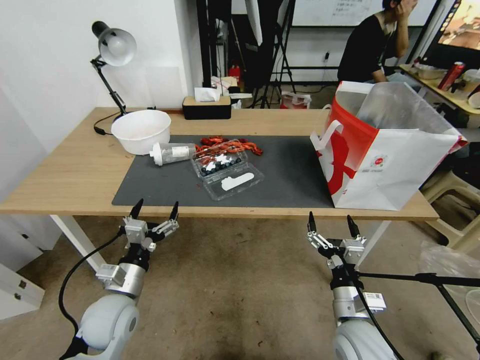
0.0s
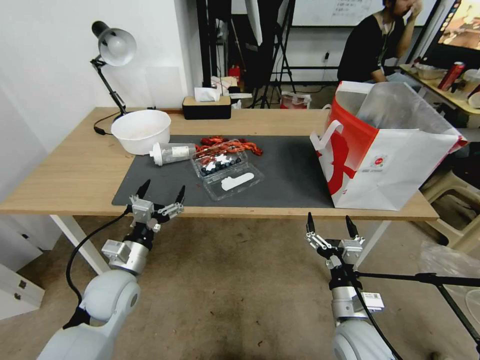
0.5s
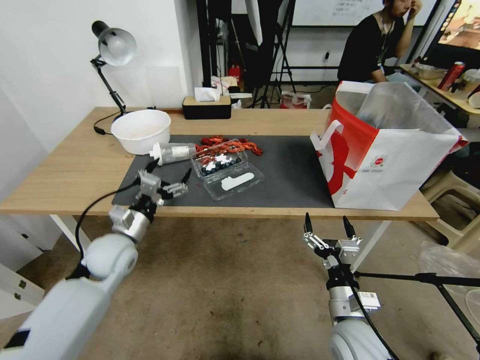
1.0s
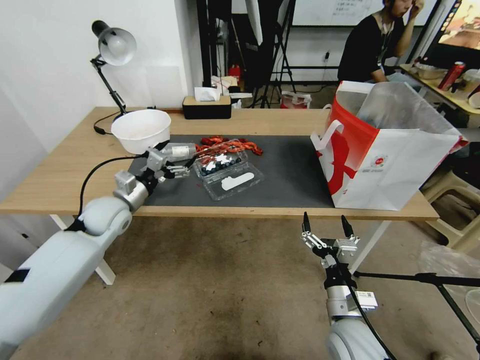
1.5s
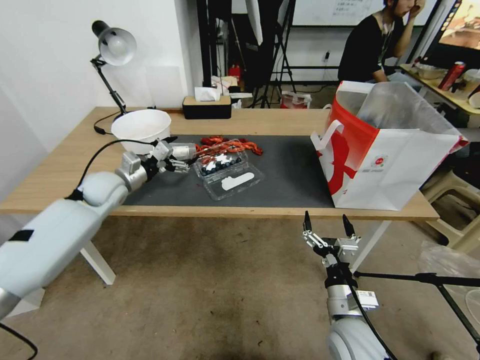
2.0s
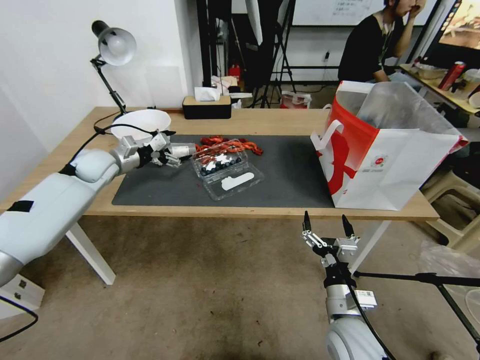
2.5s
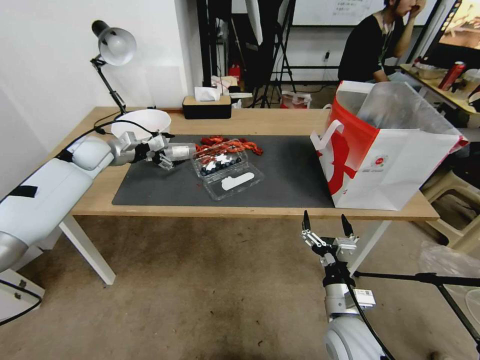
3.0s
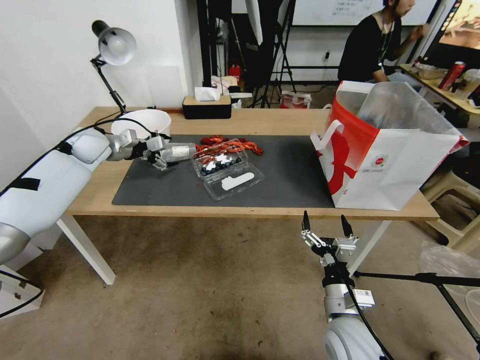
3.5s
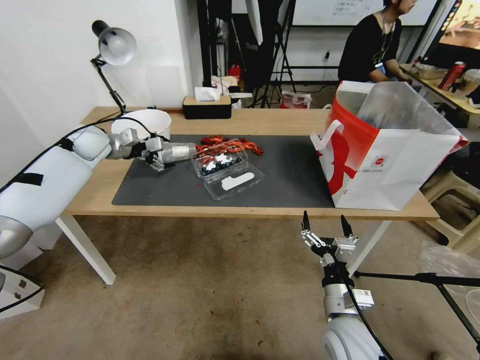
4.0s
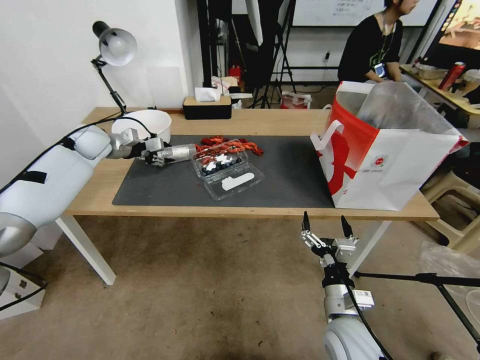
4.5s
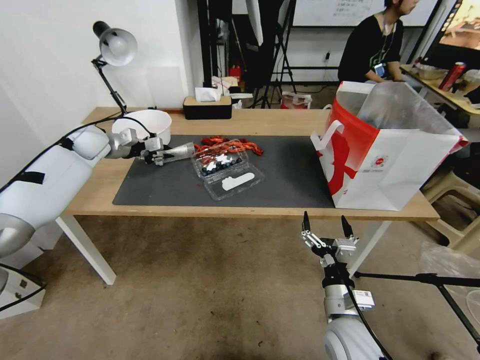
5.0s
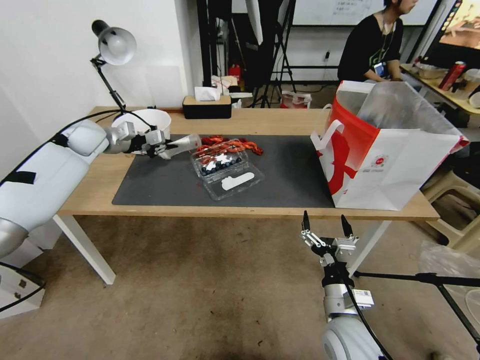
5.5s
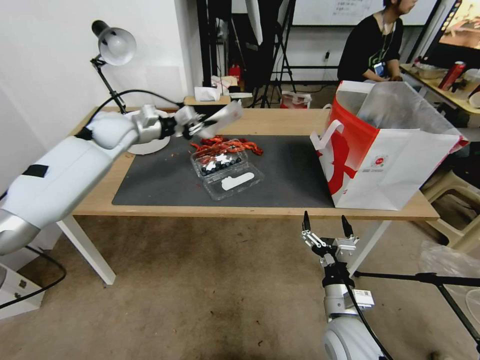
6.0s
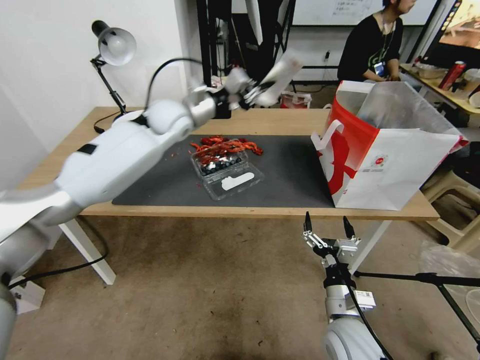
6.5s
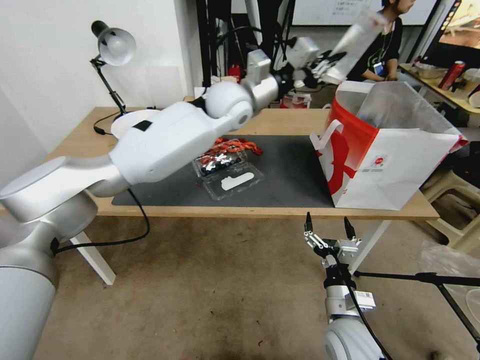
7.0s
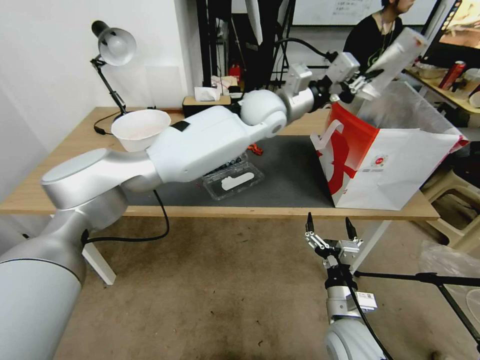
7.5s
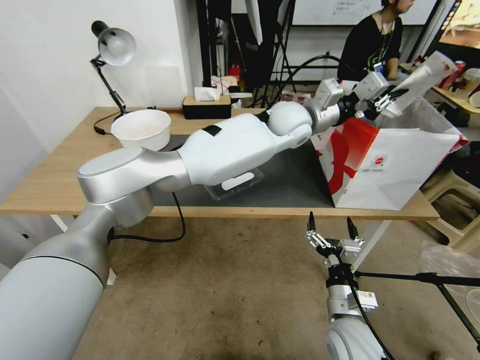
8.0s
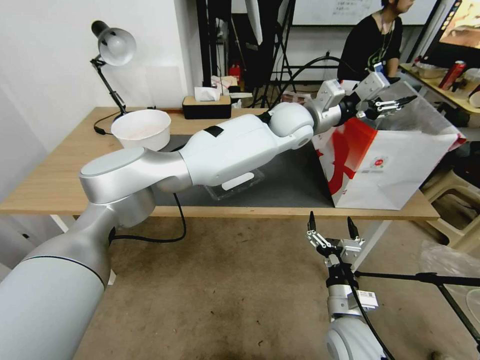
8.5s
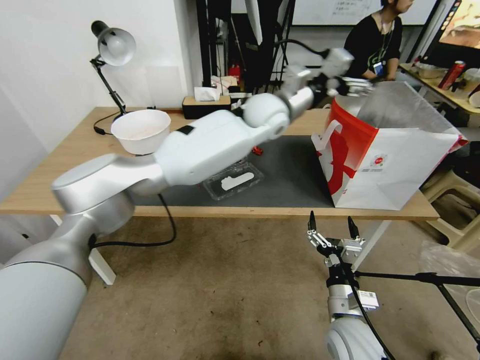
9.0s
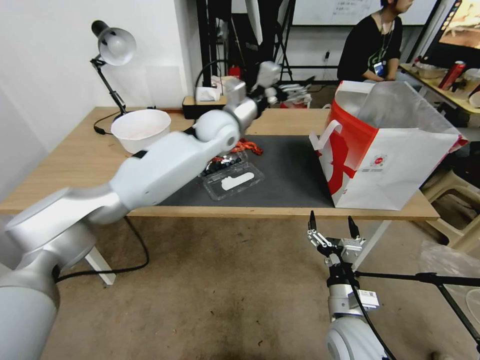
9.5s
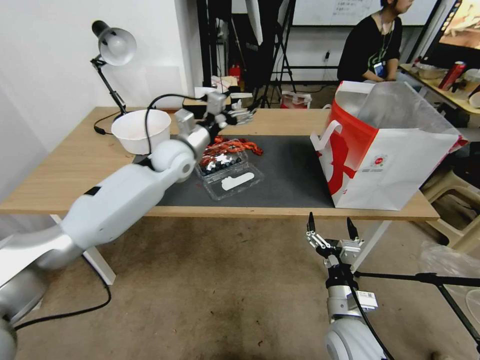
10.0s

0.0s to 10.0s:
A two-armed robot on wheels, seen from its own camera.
0.0s to 2.0s: The left gripper shifts approximately 30 cm forward and upward.
2.0s to 4.0s: The left gripper moves forward, upward and to the left, roughly 15 cm.
4.0s to 6.0s: The left gripper moves to the right, about 10 cm, and closes up.
6.0s to 8.0s: The left gripper moves to the right, about 40 cm.
8.0s to 10.0s: The left gripper travels to the left by roughly 30 cm, and opens.

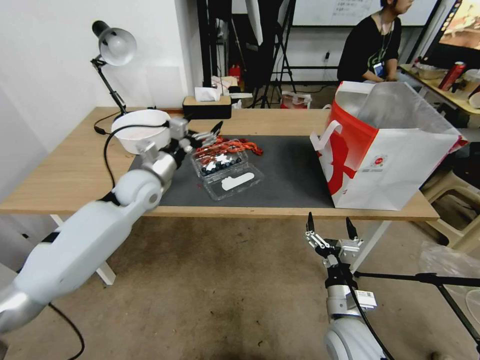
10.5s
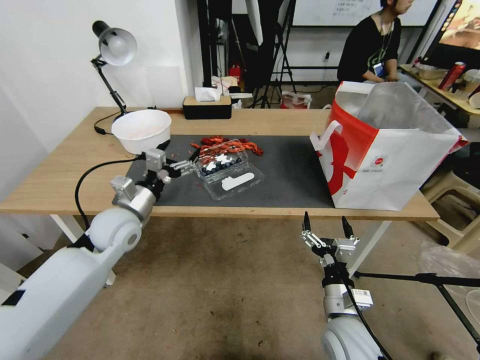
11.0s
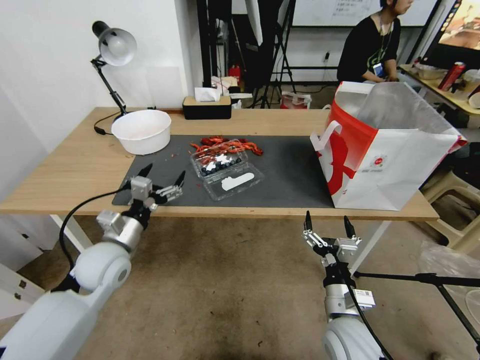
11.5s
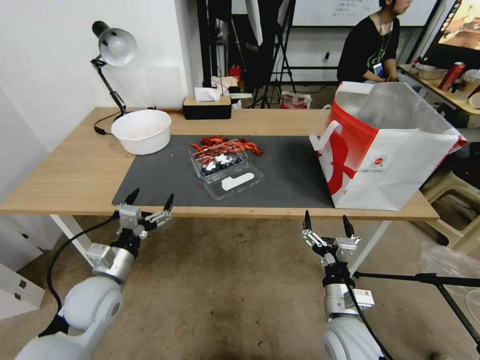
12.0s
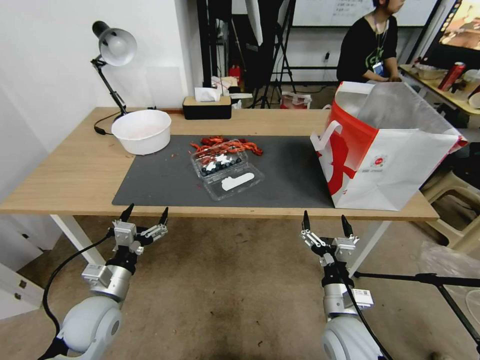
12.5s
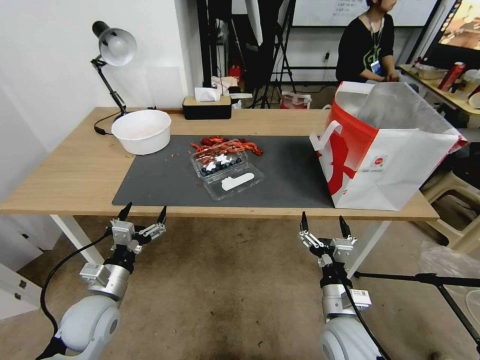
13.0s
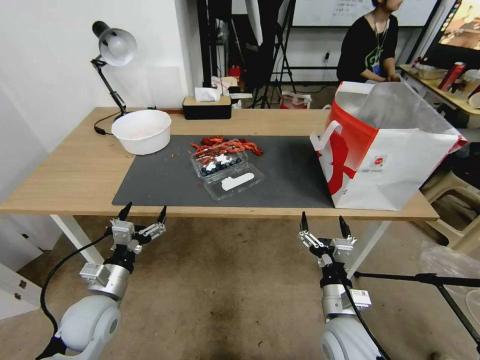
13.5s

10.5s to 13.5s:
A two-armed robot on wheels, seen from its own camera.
10.5s to 12.0s: The left gripper is displaced backward and downward by about 20 cm.
12.0s to 13.5s: The grippers stay close to where they were, moving slightly.
